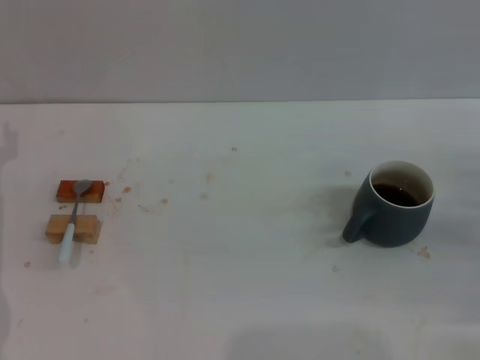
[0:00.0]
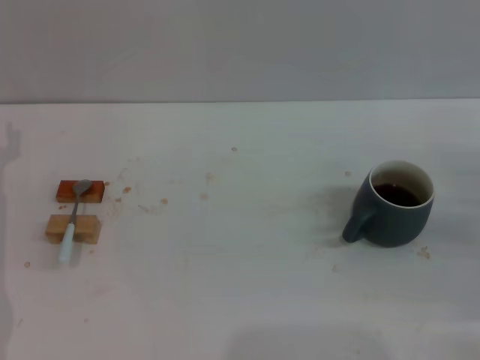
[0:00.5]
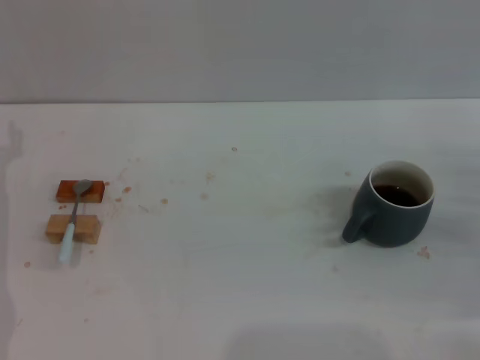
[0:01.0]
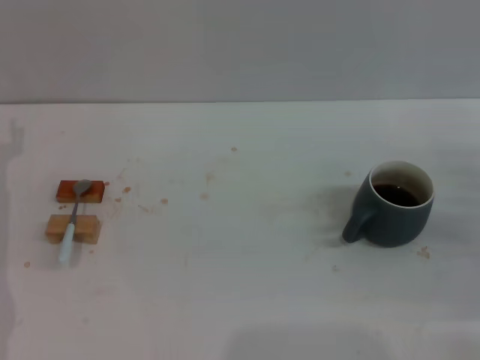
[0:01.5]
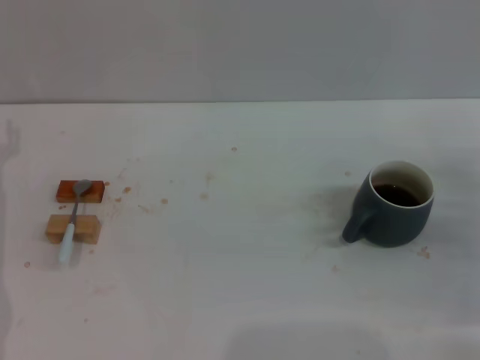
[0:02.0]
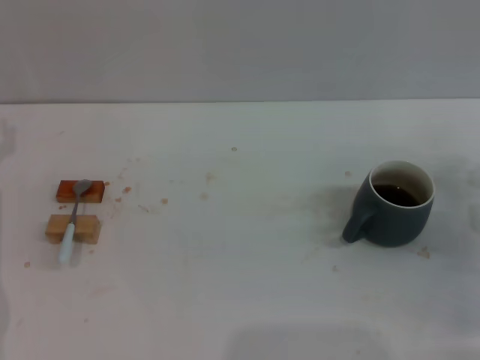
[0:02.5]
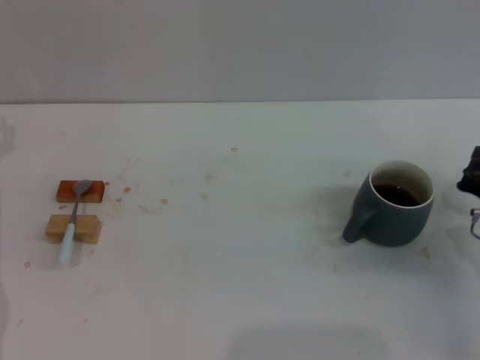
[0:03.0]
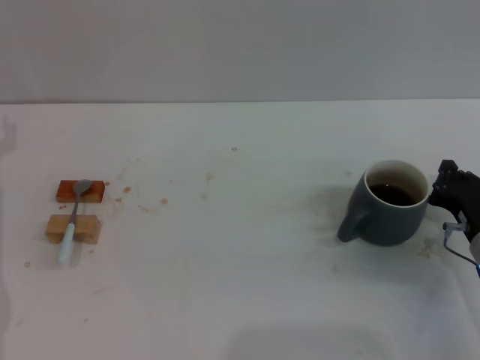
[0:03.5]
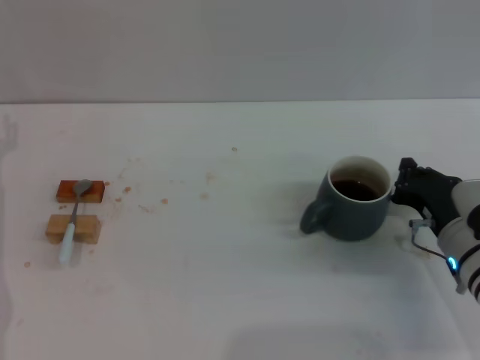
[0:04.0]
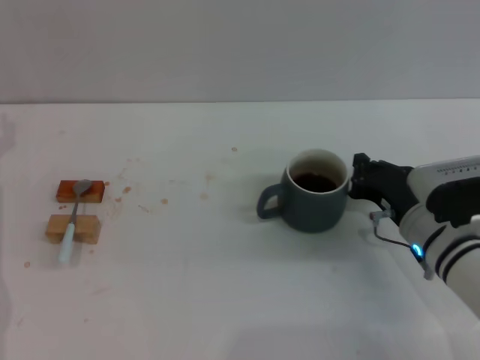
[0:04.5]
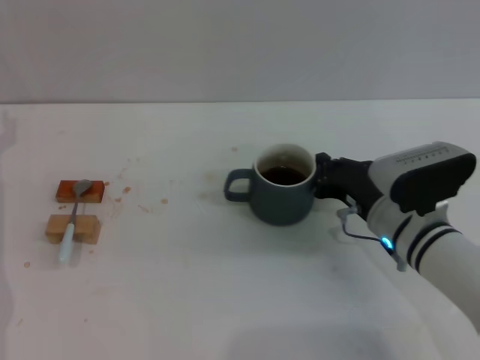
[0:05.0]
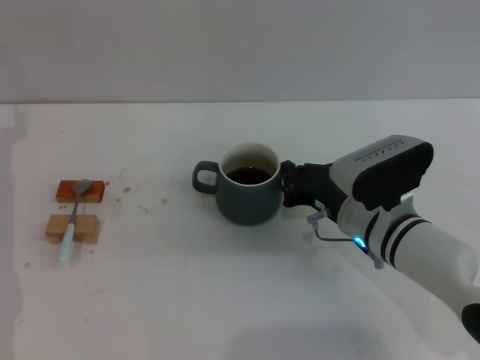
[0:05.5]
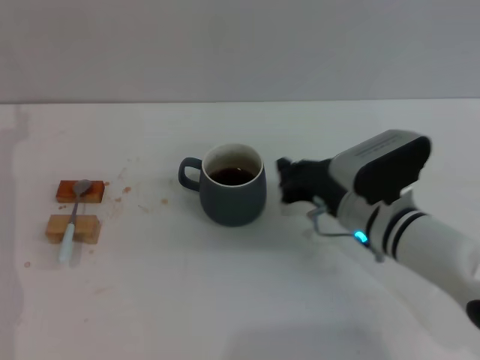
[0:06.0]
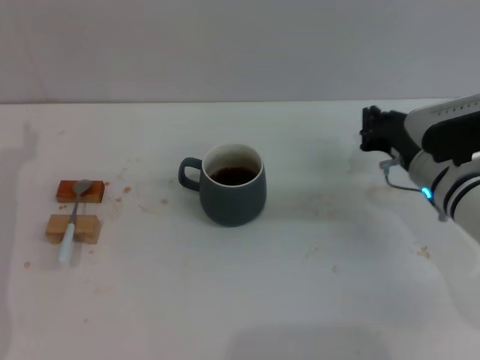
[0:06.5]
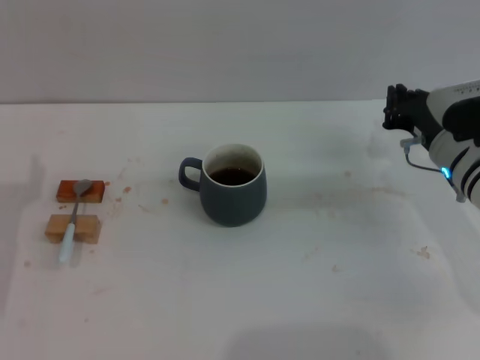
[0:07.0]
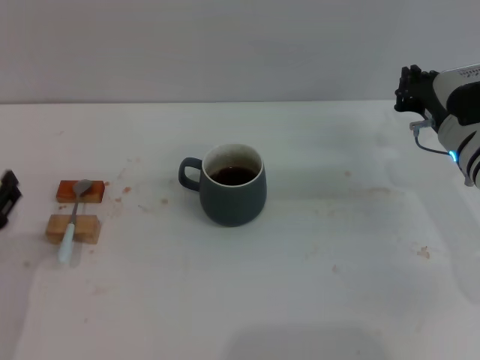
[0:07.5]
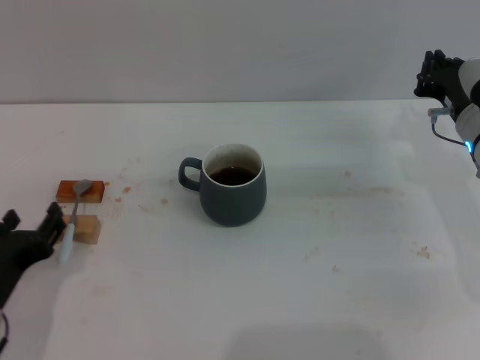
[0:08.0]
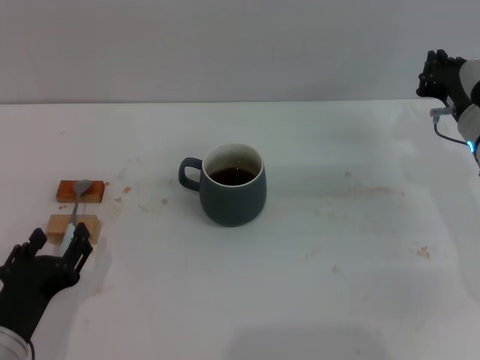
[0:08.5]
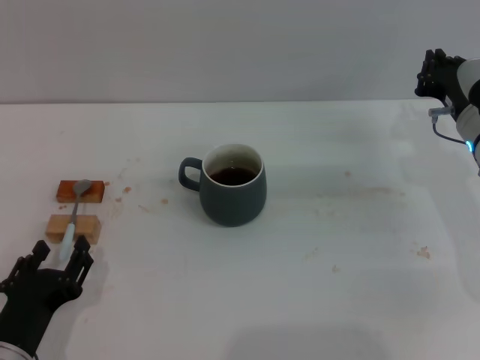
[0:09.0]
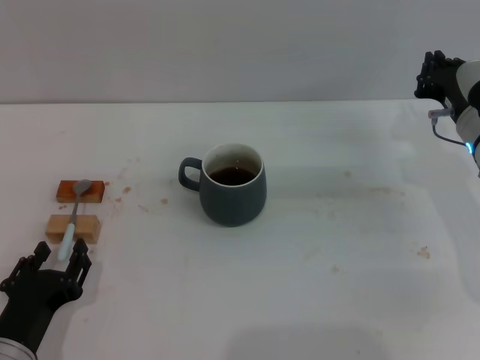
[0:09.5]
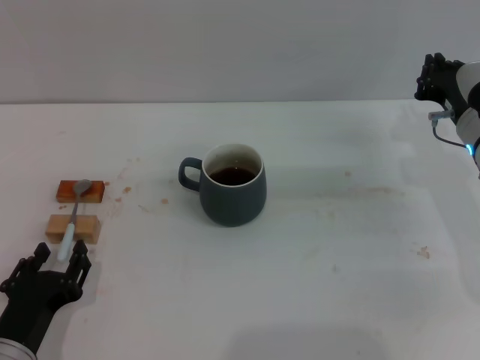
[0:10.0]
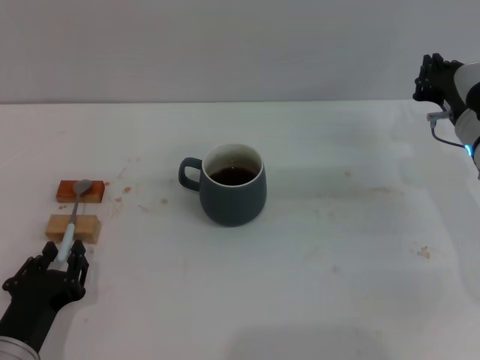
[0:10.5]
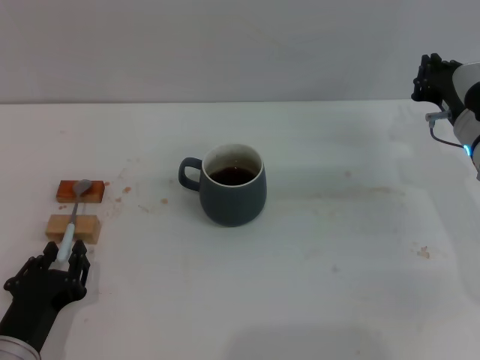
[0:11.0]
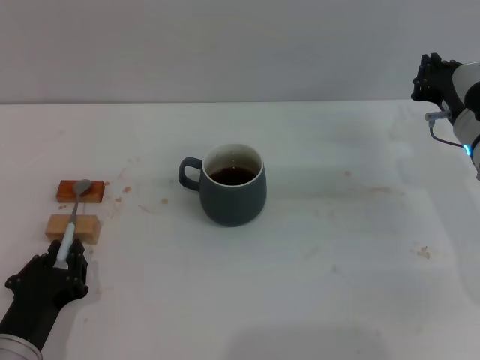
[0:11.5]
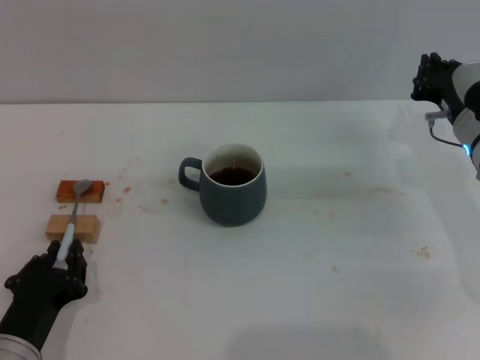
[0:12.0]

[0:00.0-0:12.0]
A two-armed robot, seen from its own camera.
Task of the whole recording: Move the grey cup to the center, lift the blue spoon, stir it three times in the cup, and put the spoon into the cup.
Step, 0:00.0 to 0:06.0: Move the cup with coffee to the center of view with the right gripper.
0:02.0 to 0:04.0: The right gripper moves to the left, about 10 cm, and closes its fingers.
0:04.0 to 0:06.0: The right gripper heads to the left, covering about 10 cm.
0:06.0 to 0:08.0: The left gripper goes roughly 20 cm backward and to the right. The right gripper travels to the right and forward by approximately 15 cm.
0:08.0 to 0:10.0: The left gripper heads downward, covering some 5 cm.
0:10.0 to 0:12.0: The left gripper closes its fingers.

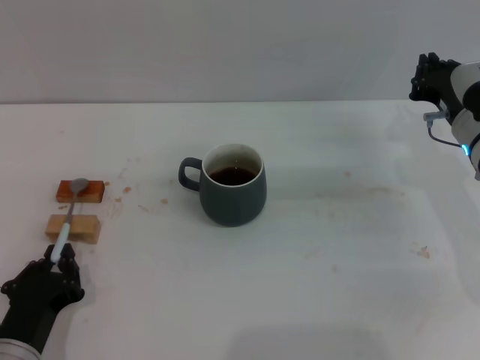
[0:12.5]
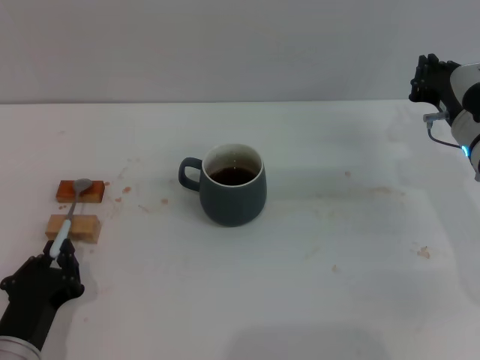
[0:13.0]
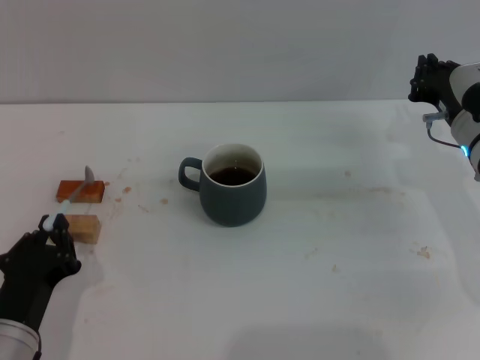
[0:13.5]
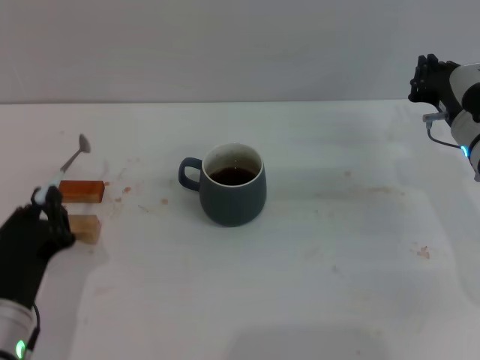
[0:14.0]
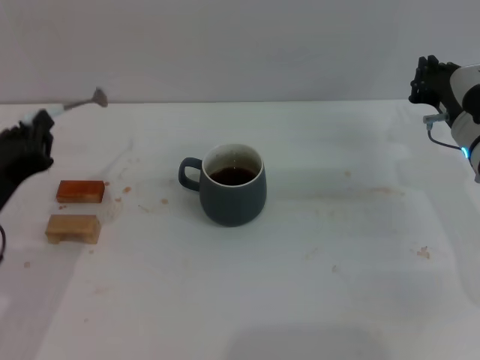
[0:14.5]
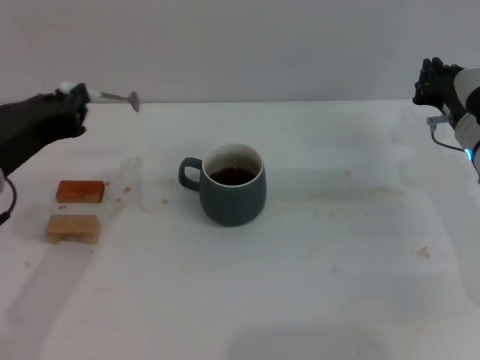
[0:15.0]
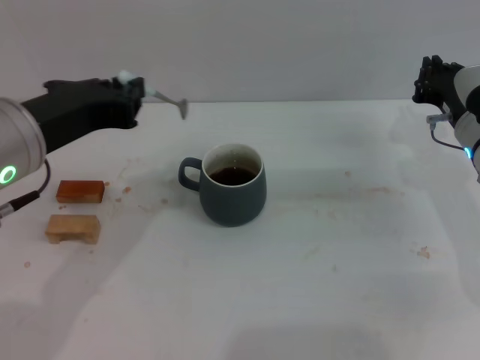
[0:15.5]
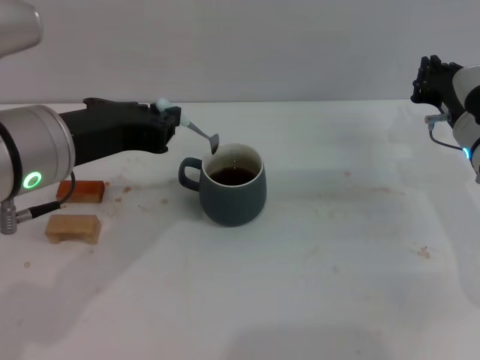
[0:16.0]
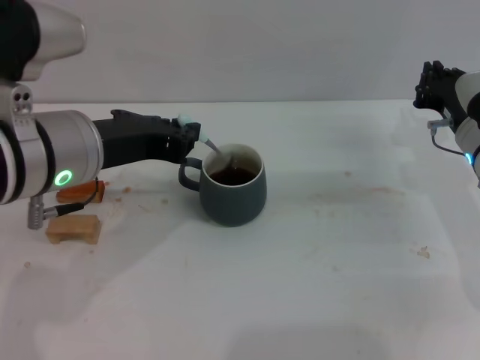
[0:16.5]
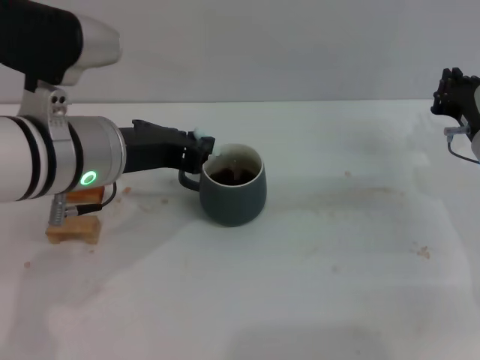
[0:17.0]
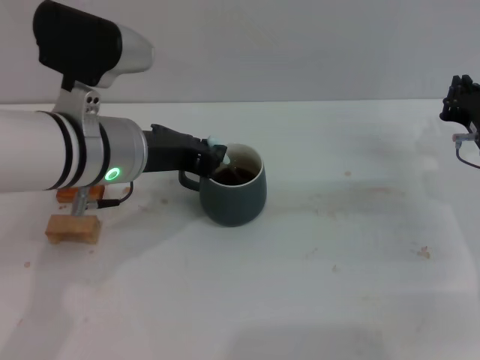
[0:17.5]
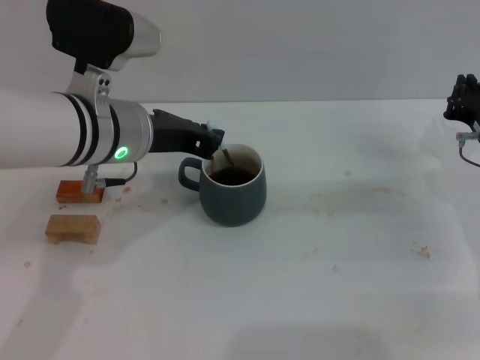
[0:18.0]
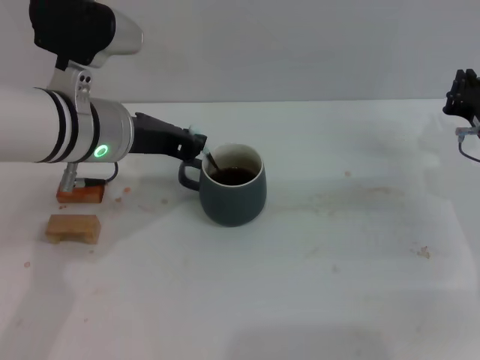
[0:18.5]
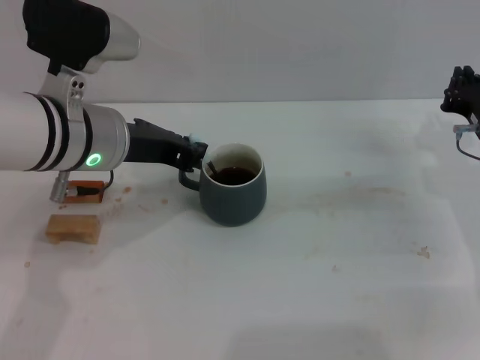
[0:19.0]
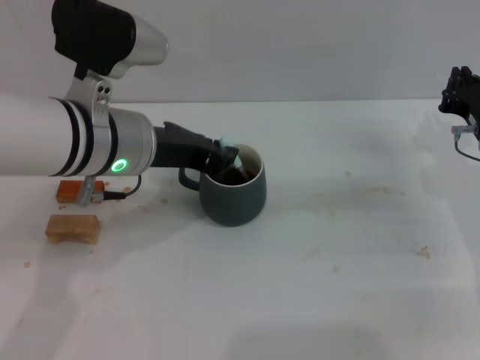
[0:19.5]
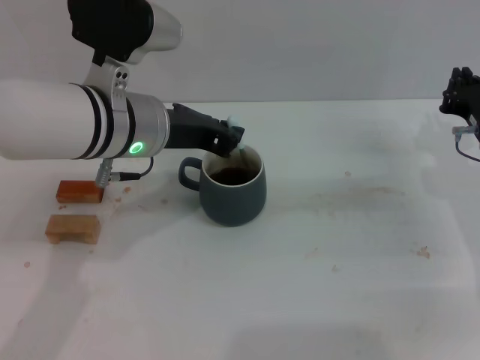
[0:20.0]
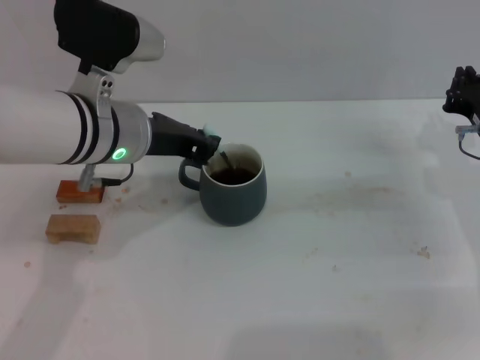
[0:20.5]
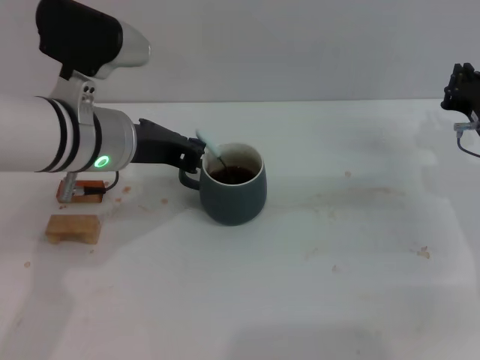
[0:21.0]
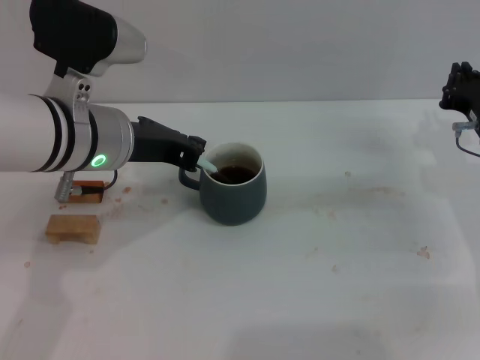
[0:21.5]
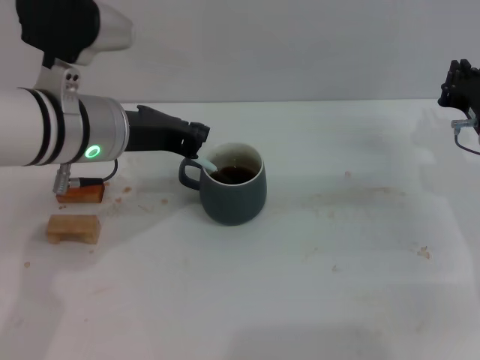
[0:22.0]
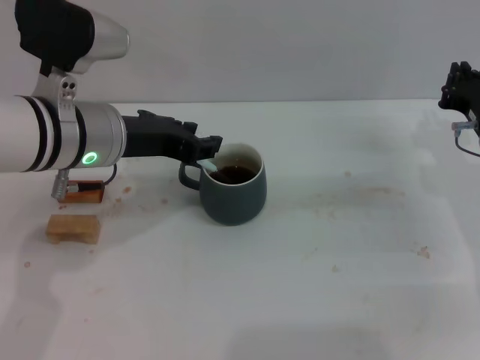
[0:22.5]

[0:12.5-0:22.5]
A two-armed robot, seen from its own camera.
Task of the whole recording: Move the grey cup to the center, lift the blue spoon, stir it three times in the cup, and put the spoon into the cup.
Step, 0:12.5 to 0:14.5: Pick up the spoon with the left gripper.
0:12.5 to 0:14.5: The left gripper moves upward and forward, approximately 15 cm.
0:14.5 to 0:16.5: The left gripper heads upward, to the right and forward, covering about 15 cm.
0:16.5 to 0:18.5: The left gripper goes approximately 10 cm forward.
0:18.5 to 0:20.5: The grippers stay close to where they were, moving slightly.
0:20.5 to 0:22.5: The left gripper opens up.

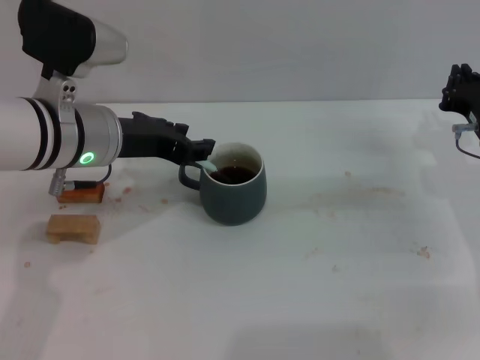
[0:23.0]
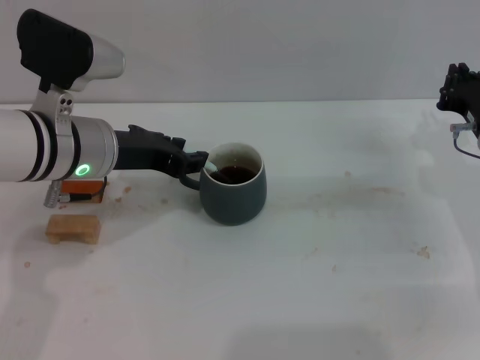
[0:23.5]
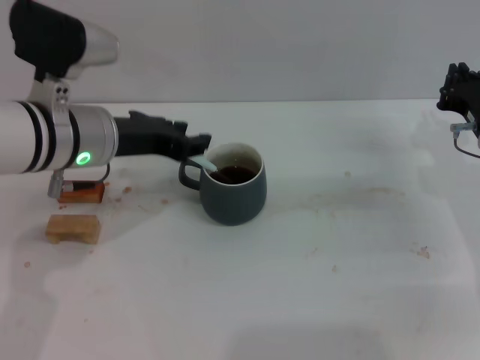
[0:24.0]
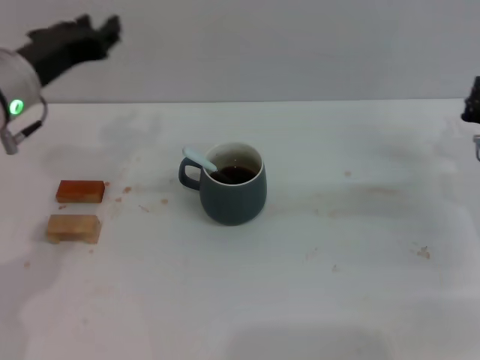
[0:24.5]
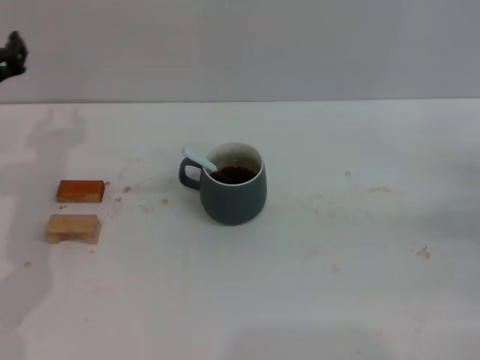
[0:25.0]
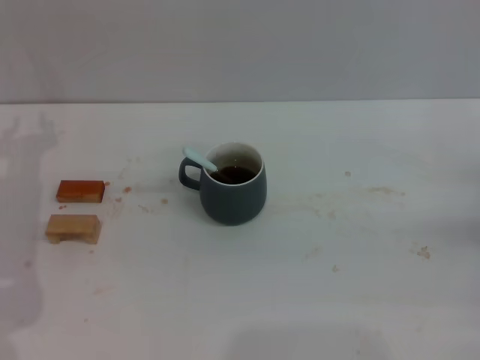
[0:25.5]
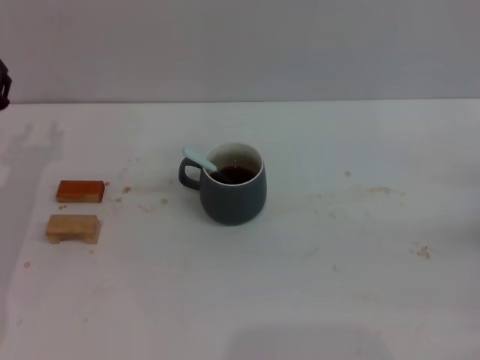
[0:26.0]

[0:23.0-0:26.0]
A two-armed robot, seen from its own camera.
Task of the whole recording: Move the grey cup to the center, lift the blue spoon, stir it three times in the cup, and put the spoon into the cup.
0:23.0 to 0:24.5: The left gripper shifts roughly 5 cm to the left.
0:24.5 to 0:26.0: The left gripper is displaced downward and to the left by some 15 cm, while the right gripper shifts about 10 cm to the right and backward.
